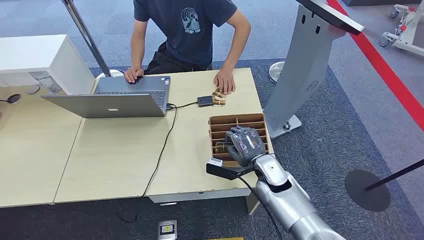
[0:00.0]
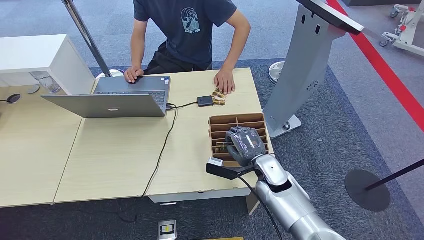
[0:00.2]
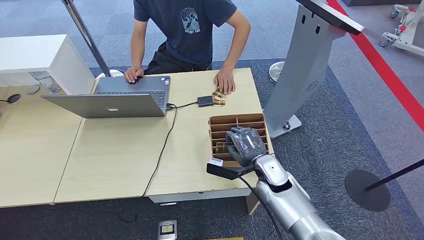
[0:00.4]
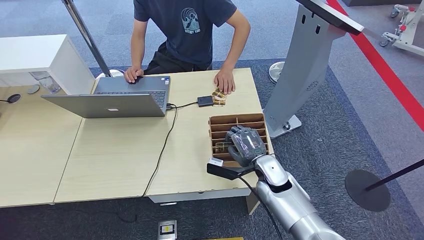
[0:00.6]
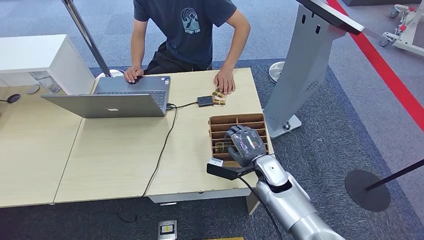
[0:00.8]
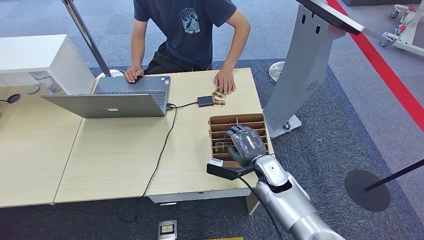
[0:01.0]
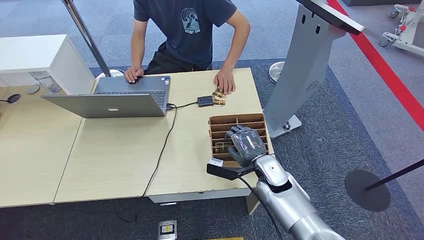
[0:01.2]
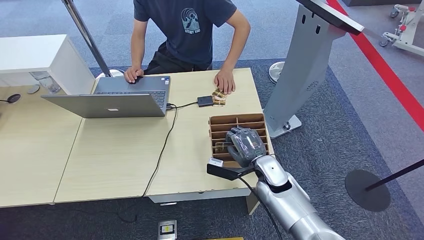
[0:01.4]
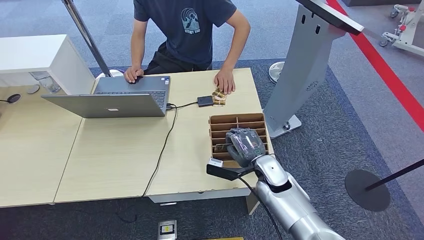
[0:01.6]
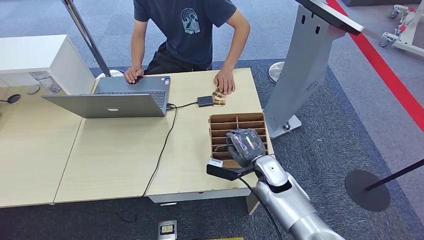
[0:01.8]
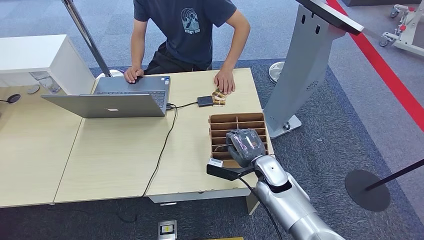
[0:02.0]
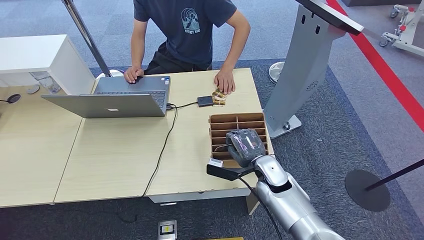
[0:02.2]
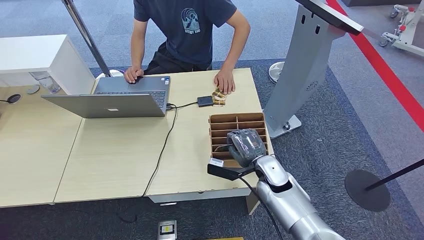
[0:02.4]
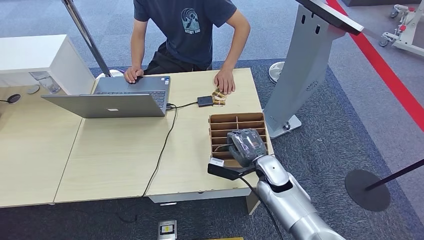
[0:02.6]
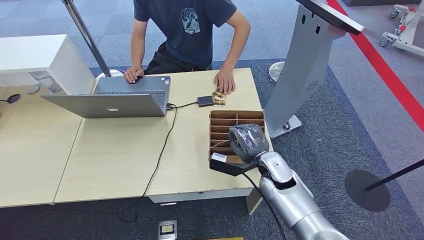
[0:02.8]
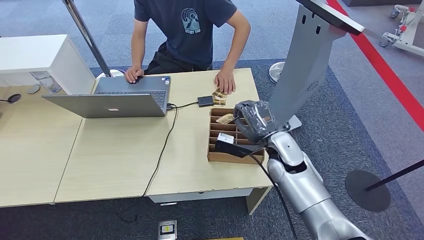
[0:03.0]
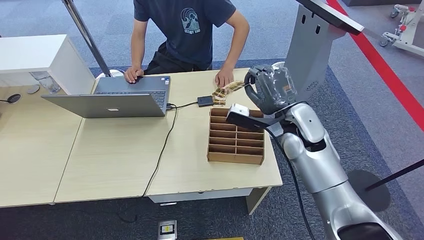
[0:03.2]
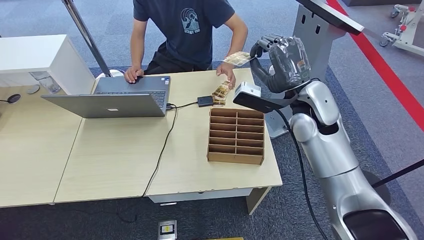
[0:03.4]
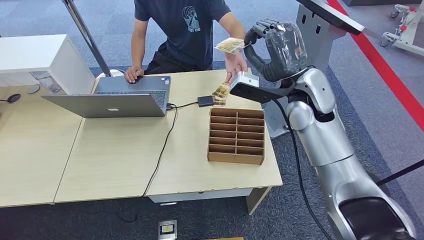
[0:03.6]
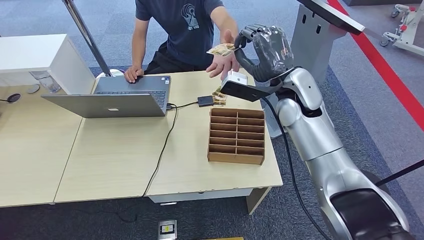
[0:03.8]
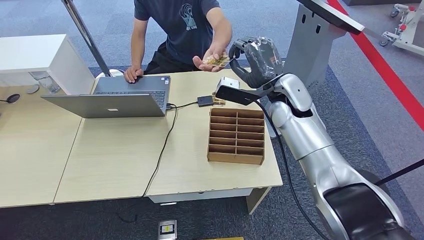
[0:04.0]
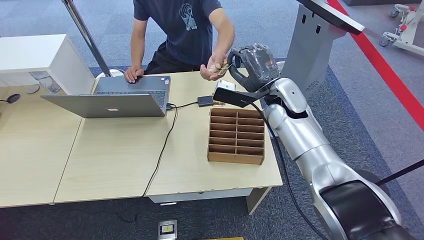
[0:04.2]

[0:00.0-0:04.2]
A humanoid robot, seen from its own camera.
Step, 0:00.0 to 0:03.0: Pick up the room card from the card holder.
Step, 0:03.4 to 0:04.2: Hand the room card to the target.
0:01.4 to 0:02.8: The right hand travels upward by approximately 15 cm.
0:02.8 to 0:04.2: The right hand moves forward, about 10 cm.
